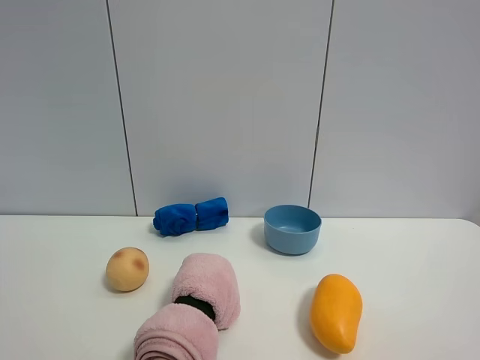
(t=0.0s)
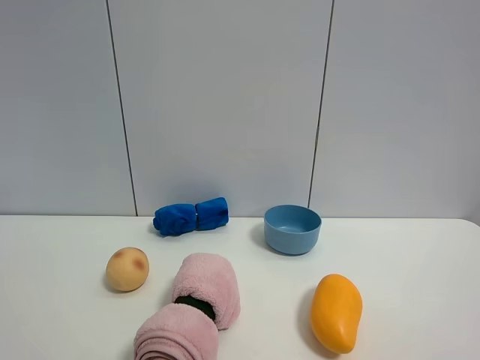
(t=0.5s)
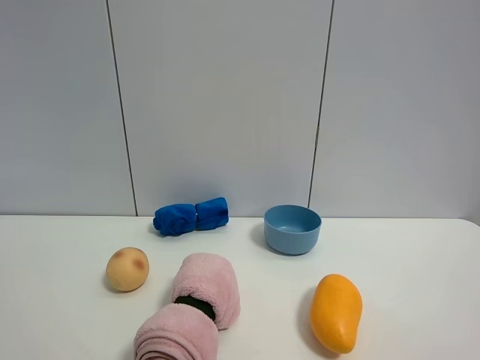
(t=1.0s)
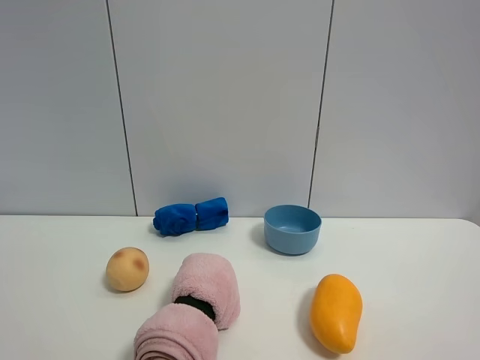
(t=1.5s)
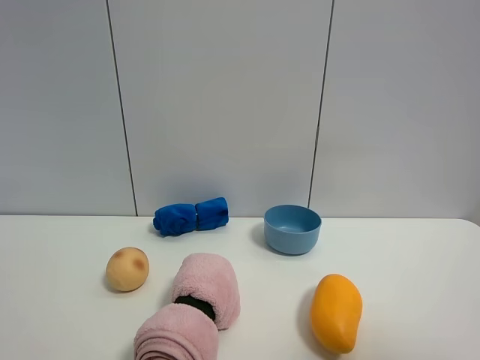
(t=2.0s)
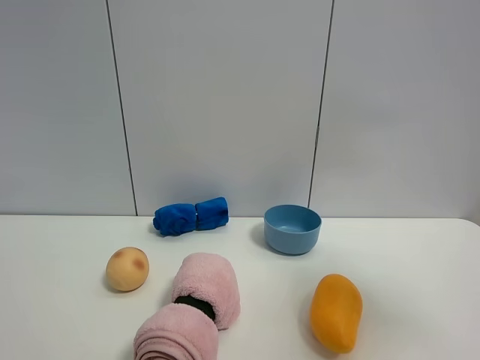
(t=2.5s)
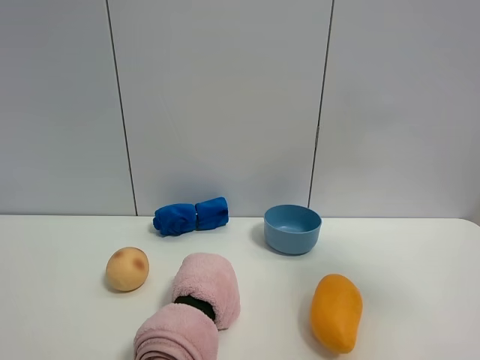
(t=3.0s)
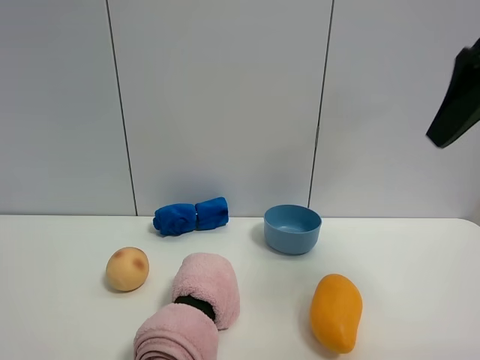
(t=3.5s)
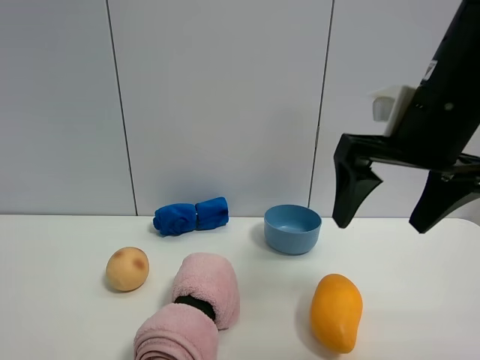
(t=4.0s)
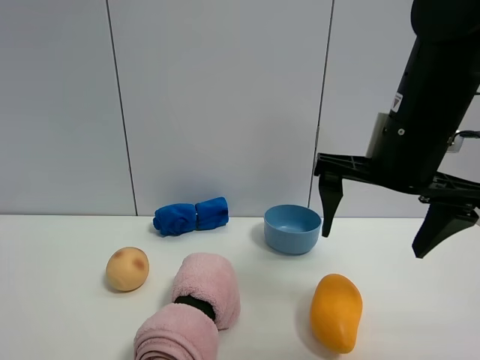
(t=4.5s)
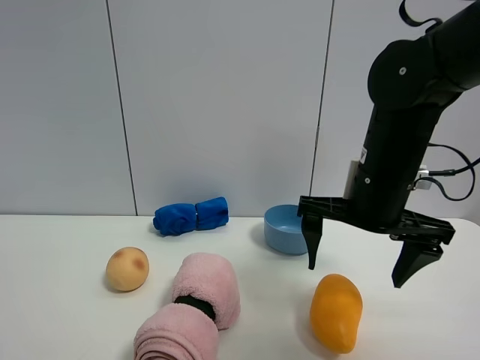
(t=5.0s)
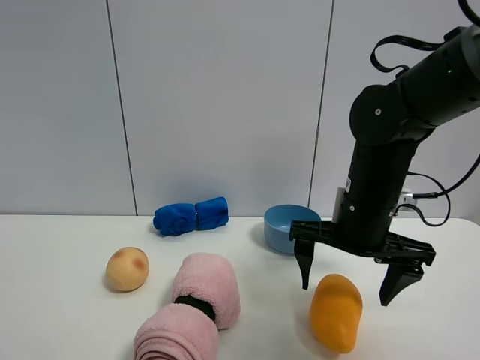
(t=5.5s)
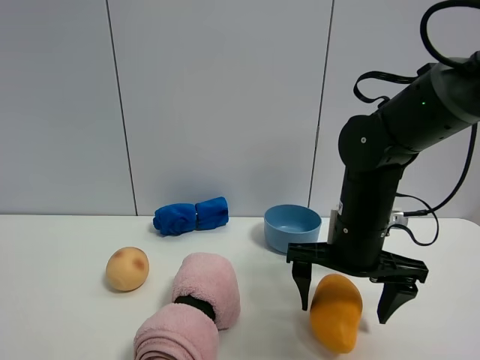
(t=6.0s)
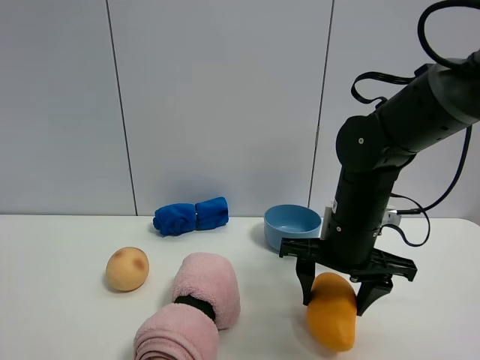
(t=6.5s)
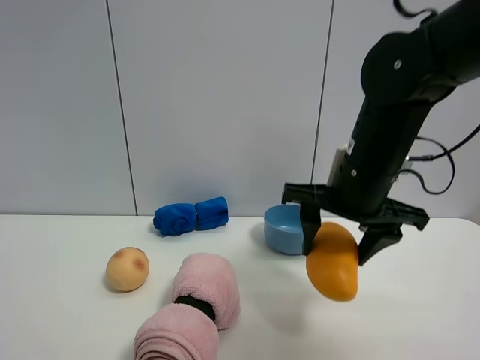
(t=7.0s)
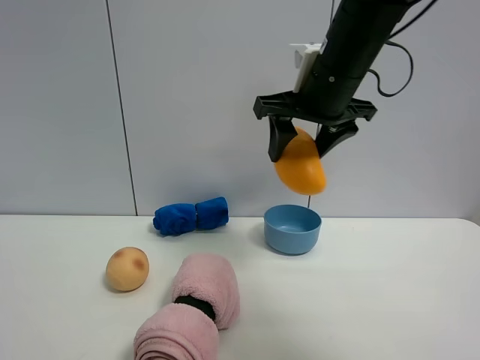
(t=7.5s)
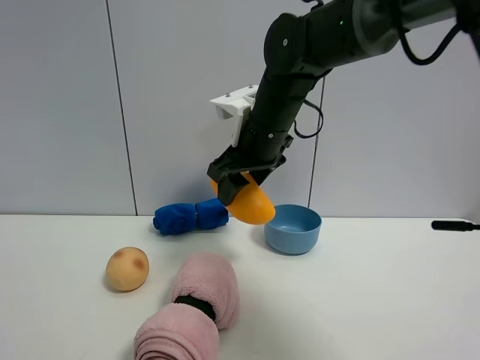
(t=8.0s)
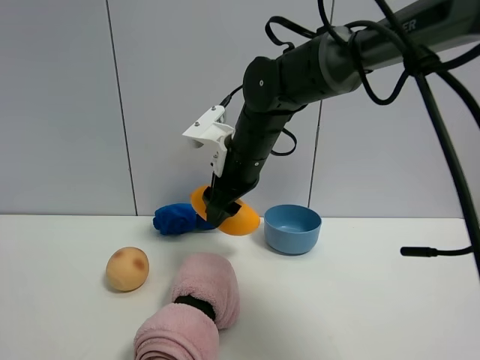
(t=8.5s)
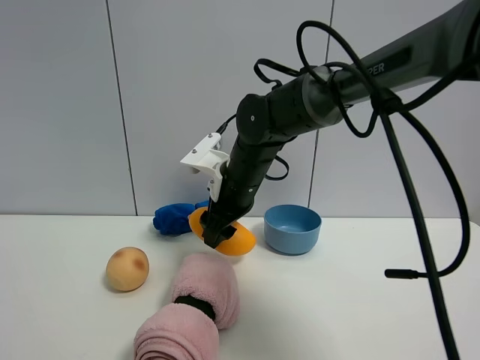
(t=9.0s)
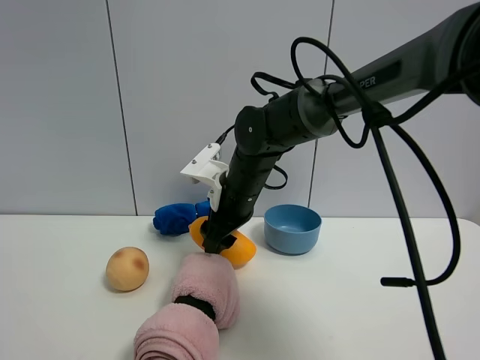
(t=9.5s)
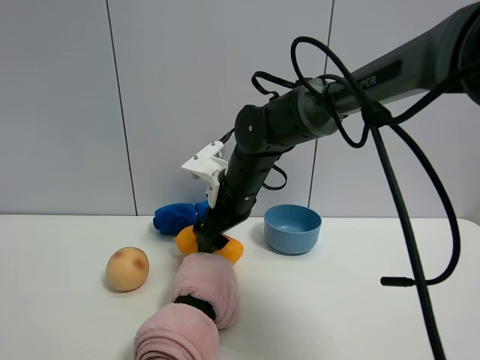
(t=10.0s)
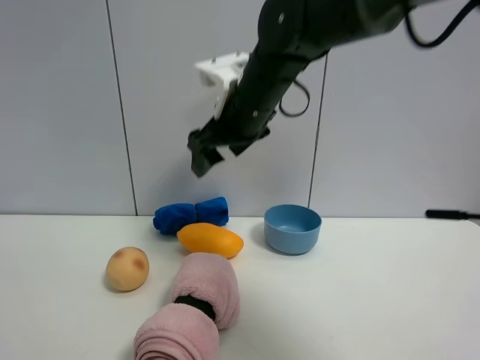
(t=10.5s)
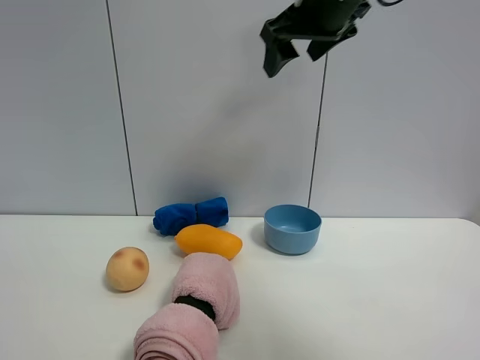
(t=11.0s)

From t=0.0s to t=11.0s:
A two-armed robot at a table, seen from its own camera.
Task of the whole recording: the gripper move the object.
Step, from t=0.0s to t=6.0s: Grasp the mango with the right gripper.
Step, from t=6.5s to t=10.0s: Place the mango on the table with the right gripper.
From t=2.0s to t=3.5s: The right gripper shifts roughly 20 cm forward.
From t=3.5s to t=5.5s: The right gripper moves downward and to the left, some 20 cm.
From t=5.5s to t=7.5s: The right gripper heads upward, covering approximately 15 cm, and closes up.
From t=7.5s to t=9.0s: The right gripper is displaced downward and to the left by roughly 15 cm.
From t=9.0s to t=11.0s: The right gripper moves upward and to the right, about 25 cm, and opens up.

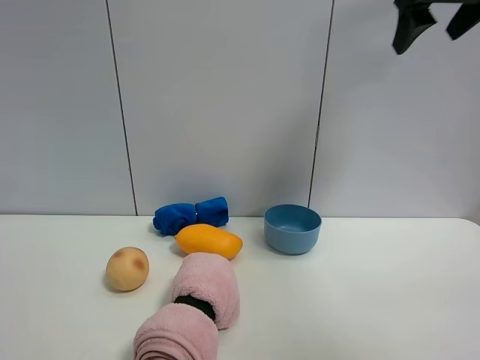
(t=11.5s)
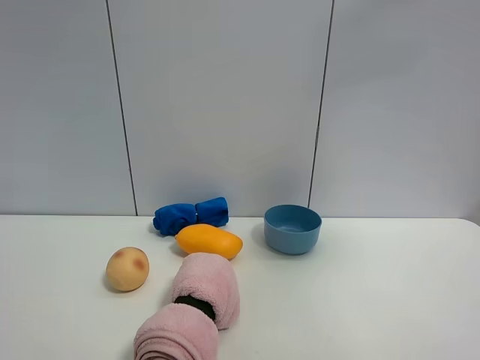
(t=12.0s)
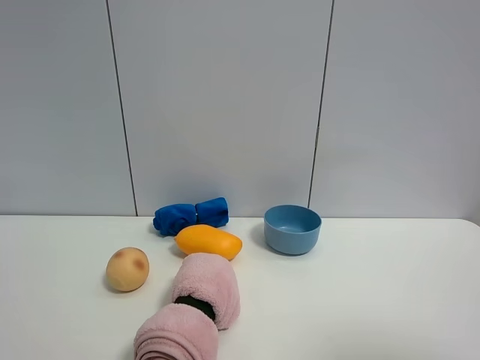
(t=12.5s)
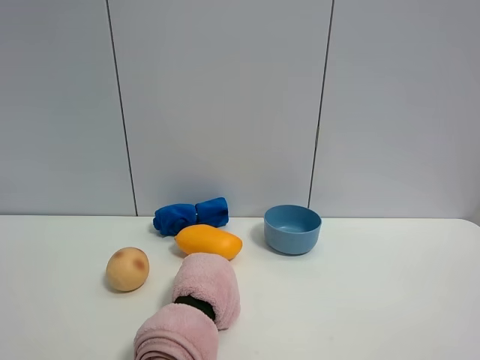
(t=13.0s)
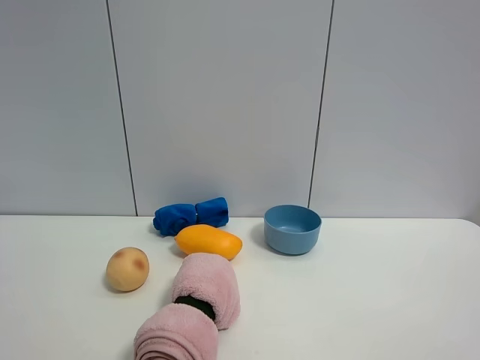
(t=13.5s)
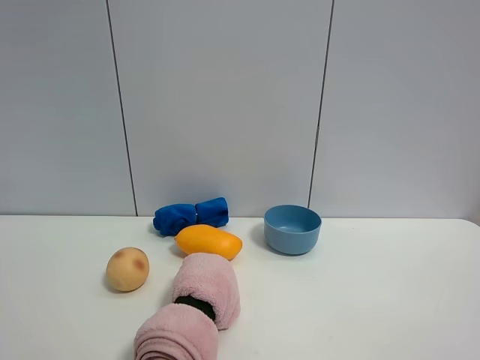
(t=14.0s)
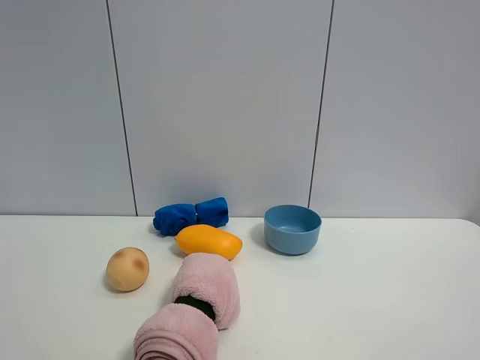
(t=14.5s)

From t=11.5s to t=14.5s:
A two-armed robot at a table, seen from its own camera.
Task of the whole recording: the gripper move the object.
From t=11.5s to t=13.0s: The right gripper goes roughly 40 cm backward and downward.

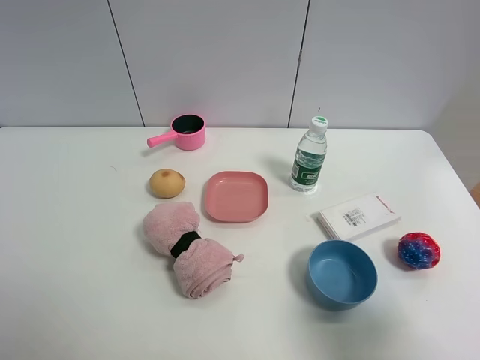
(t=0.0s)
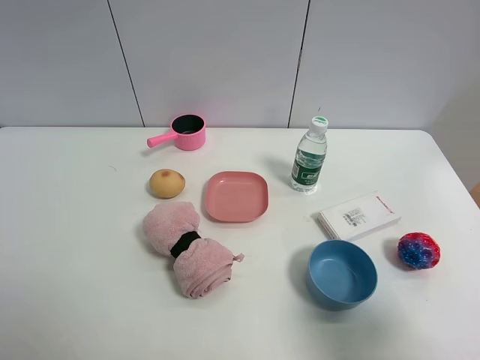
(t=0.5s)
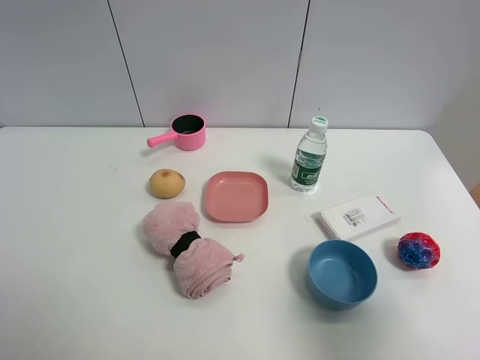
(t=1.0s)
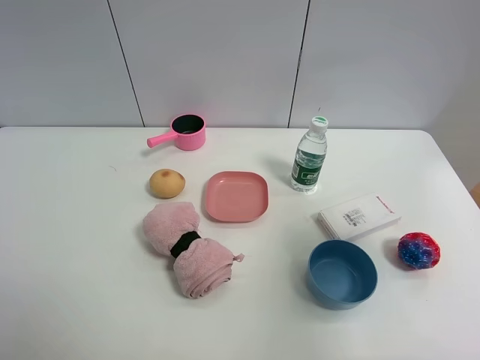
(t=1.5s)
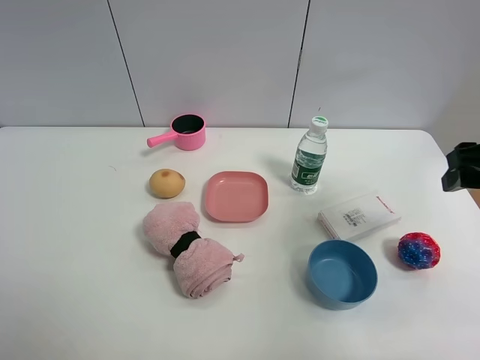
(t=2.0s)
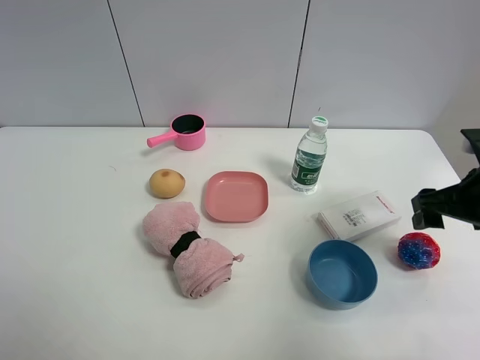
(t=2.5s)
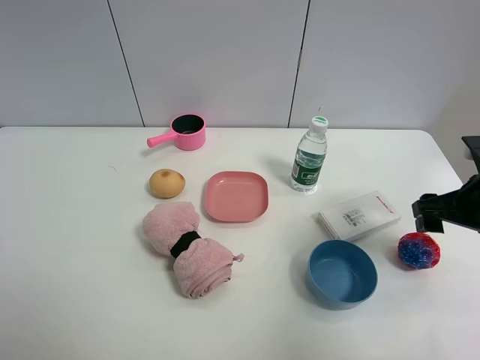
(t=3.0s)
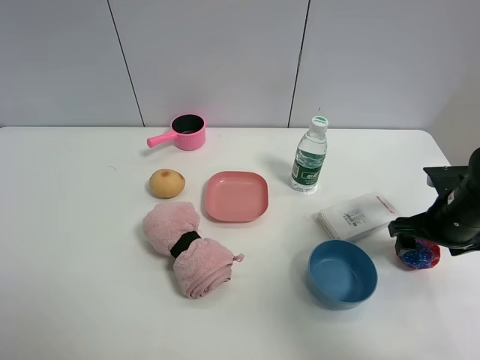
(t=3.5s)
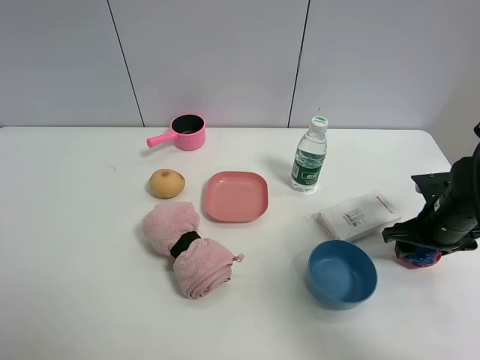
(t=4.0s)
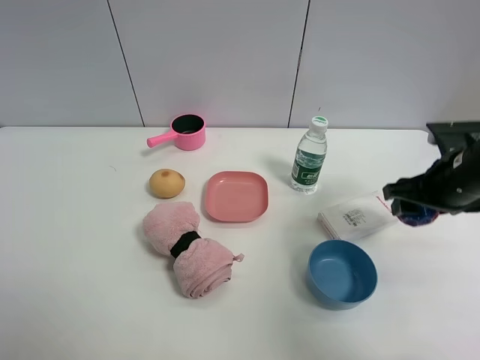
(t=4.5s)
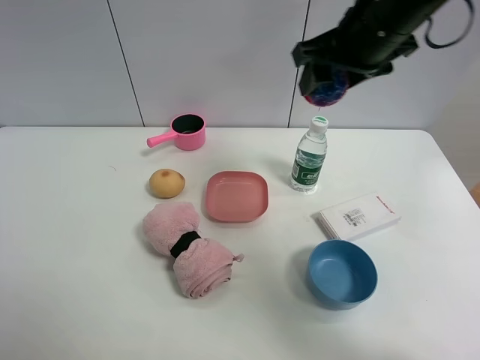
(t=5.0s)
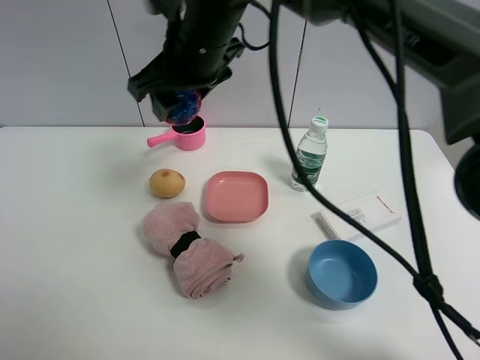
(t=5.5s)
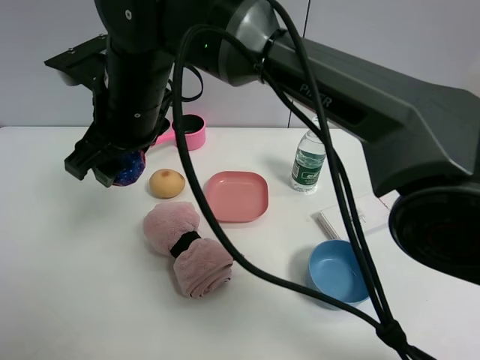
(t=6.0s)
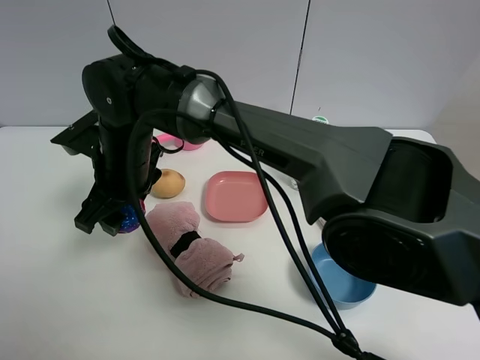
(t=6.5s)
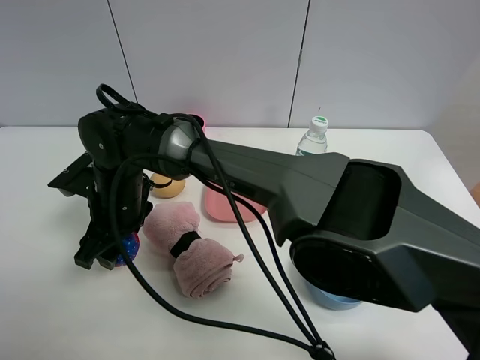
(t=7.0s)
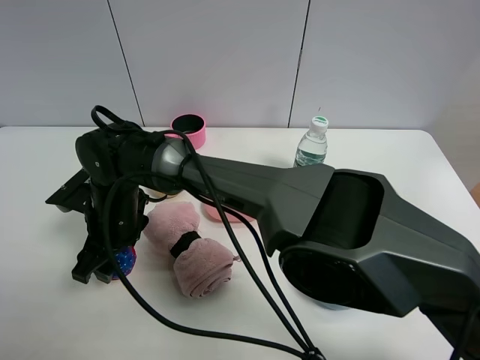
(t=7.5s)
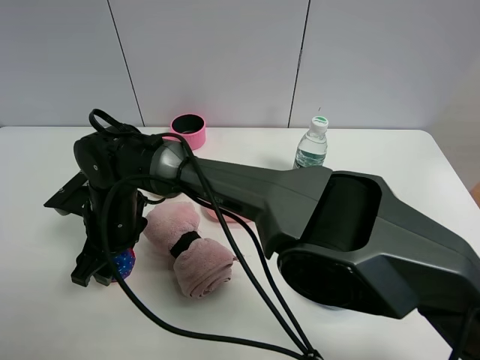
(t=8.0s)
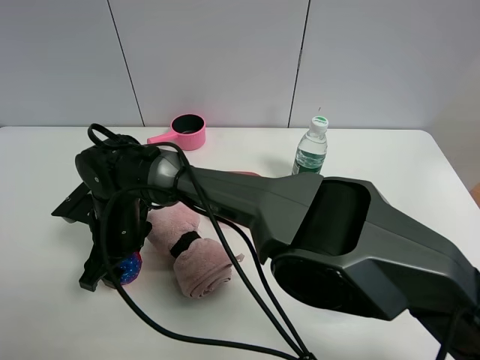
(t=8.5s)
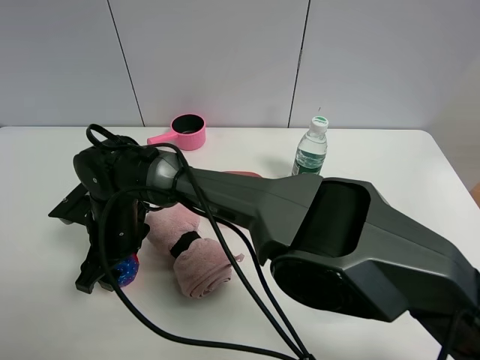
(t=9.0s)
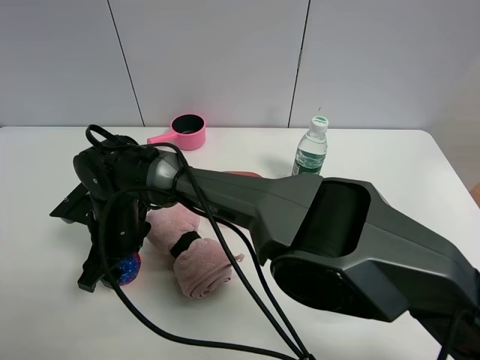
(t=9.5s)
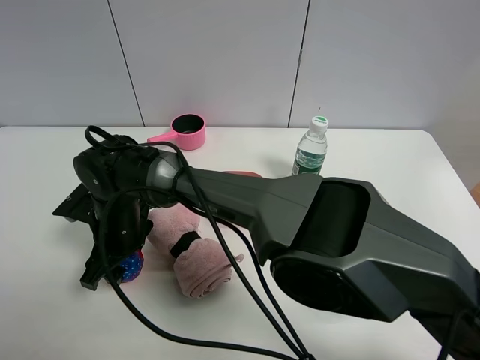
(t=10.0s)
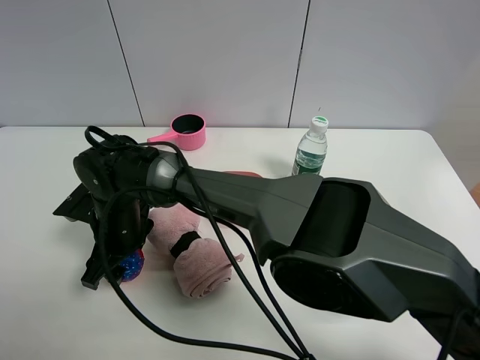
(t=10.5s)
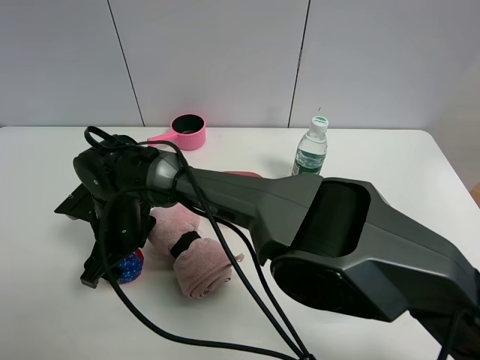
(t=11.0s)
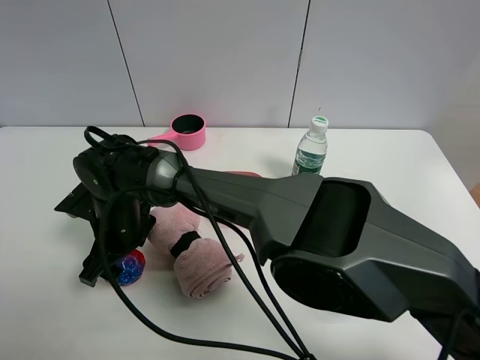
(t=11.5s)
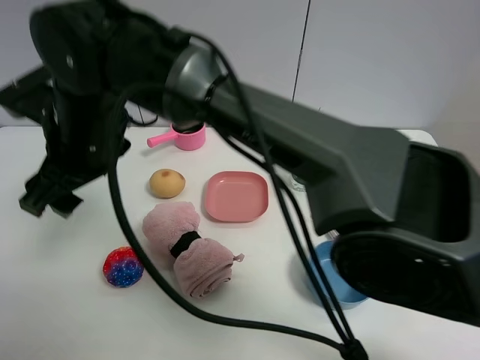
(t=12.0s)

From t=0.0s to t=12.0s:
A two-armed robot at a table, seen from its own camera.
Task of the whole recording: the gripper move the object.
Step, from t=0.0s to t=4.0s: Grasp the colorful ball with the right gripper.
Step, from t=4.5s to t=11.5s: Place the colorful ball on the table with the right gripper.
From t=0.0s to t=2.0s: The right gripper is displaced forward by roughly 20 cm.
From t=2.0s to t=4.0s: The right gripper is displaced downward by about 20 cm, and closes its fingers.
From t=4.0s to t=6.0s: The right gripper shifts roughly 50 cm to the left and upward.
From t=6.0s to t=8.0s: The right gripper heads downward, covering some 15 cm.
From t=8.0s to t=10.0s: The grippers move only a little.
From t=10.0s to t=12.0s: The right gripper moves upward, approximately 20 cm, and opens its fingers.
